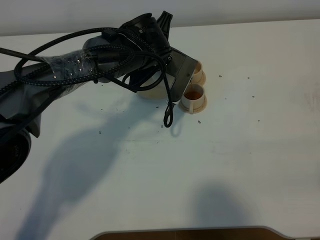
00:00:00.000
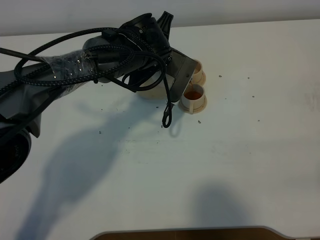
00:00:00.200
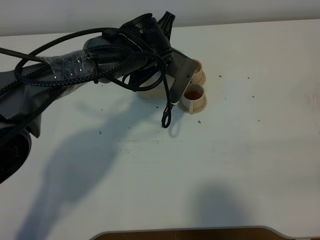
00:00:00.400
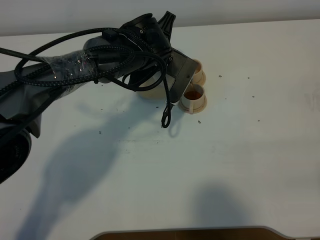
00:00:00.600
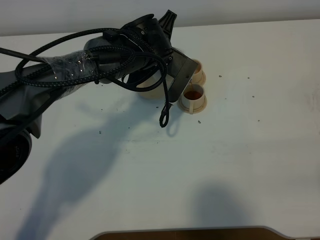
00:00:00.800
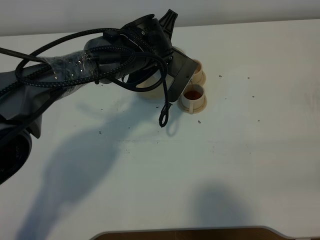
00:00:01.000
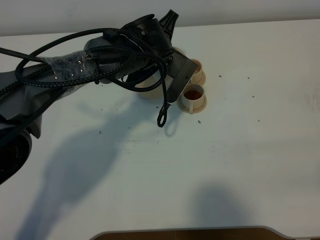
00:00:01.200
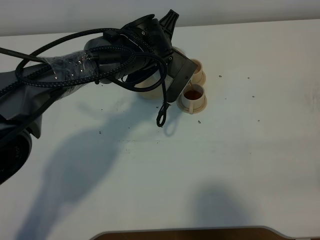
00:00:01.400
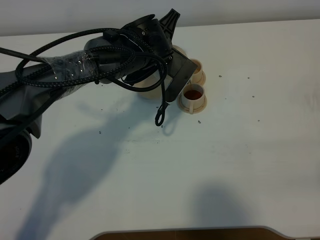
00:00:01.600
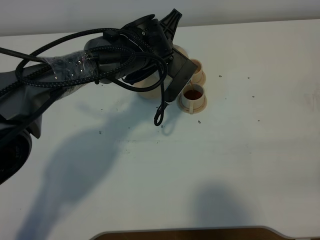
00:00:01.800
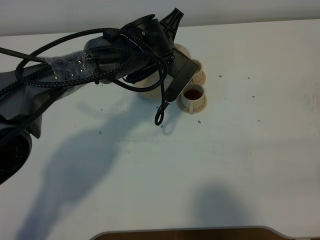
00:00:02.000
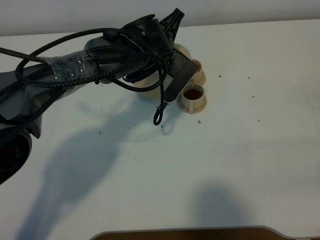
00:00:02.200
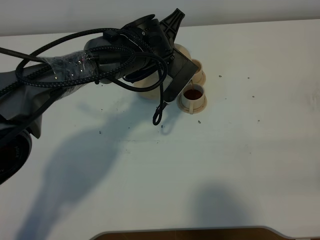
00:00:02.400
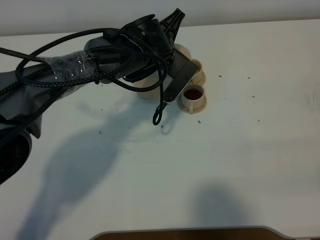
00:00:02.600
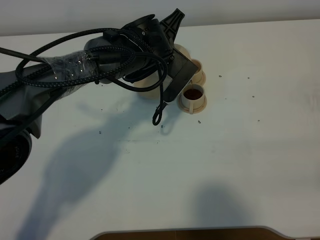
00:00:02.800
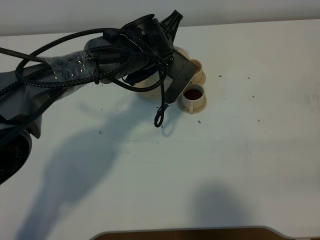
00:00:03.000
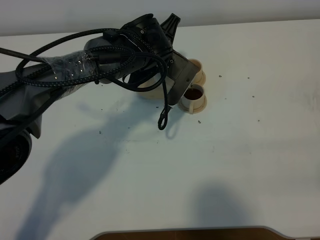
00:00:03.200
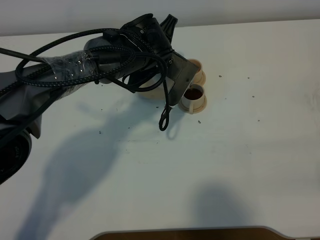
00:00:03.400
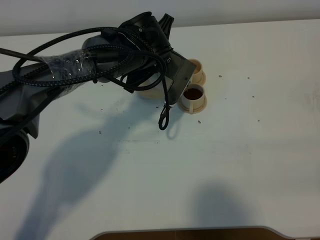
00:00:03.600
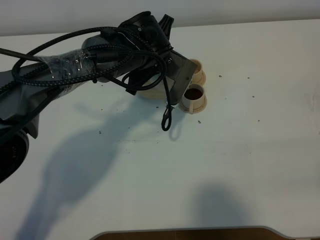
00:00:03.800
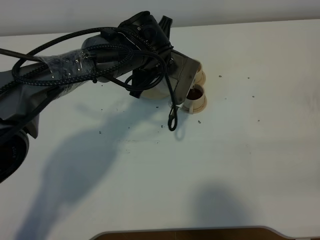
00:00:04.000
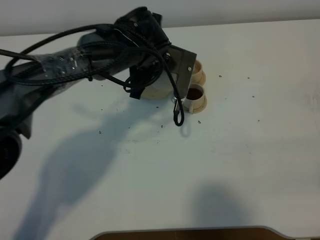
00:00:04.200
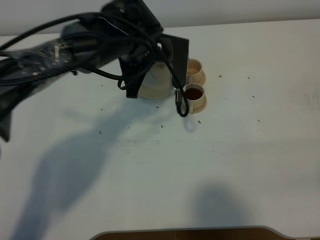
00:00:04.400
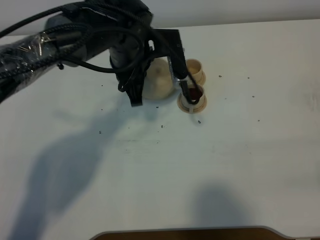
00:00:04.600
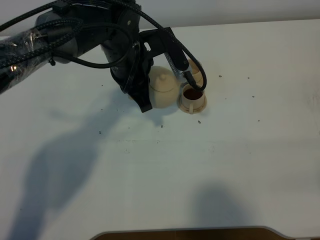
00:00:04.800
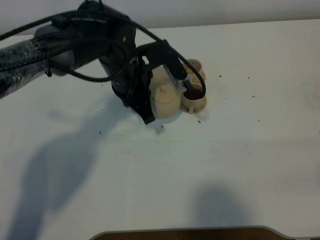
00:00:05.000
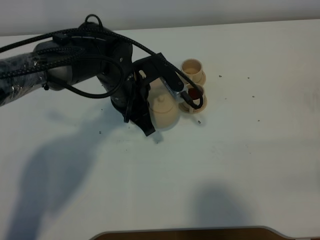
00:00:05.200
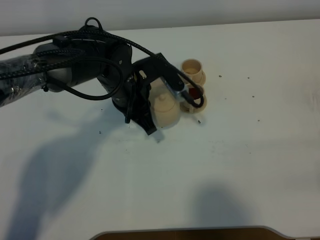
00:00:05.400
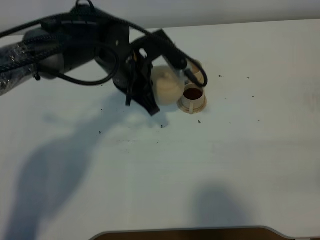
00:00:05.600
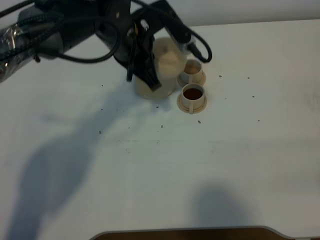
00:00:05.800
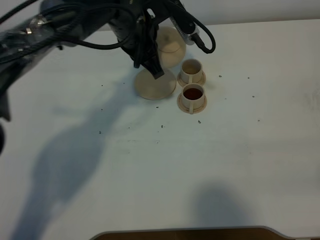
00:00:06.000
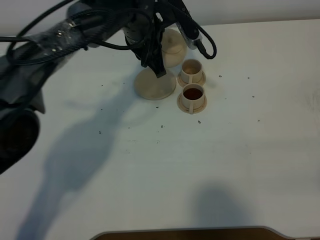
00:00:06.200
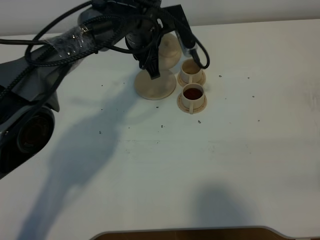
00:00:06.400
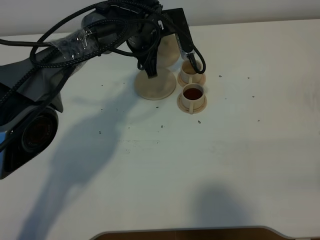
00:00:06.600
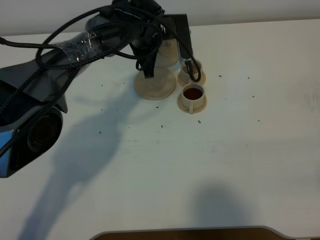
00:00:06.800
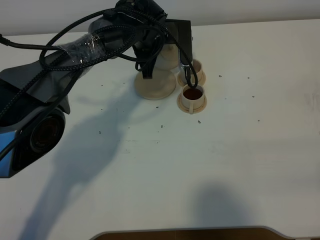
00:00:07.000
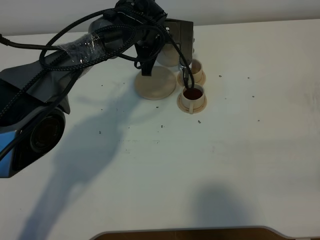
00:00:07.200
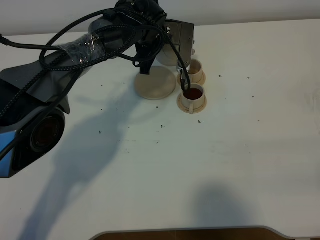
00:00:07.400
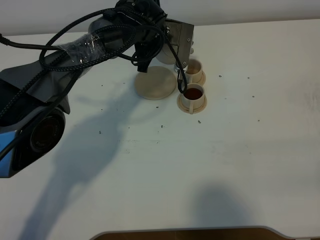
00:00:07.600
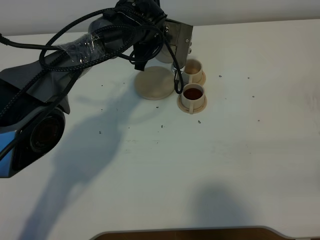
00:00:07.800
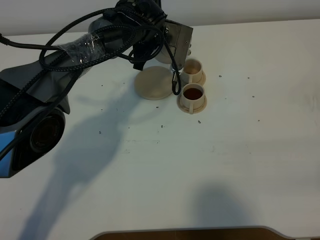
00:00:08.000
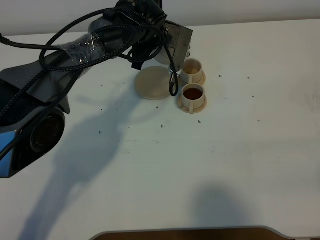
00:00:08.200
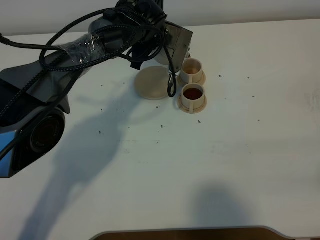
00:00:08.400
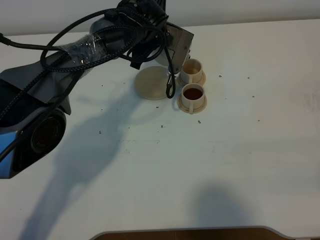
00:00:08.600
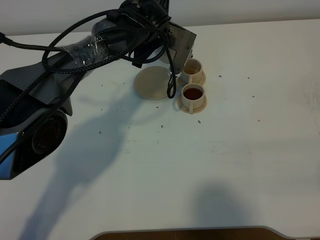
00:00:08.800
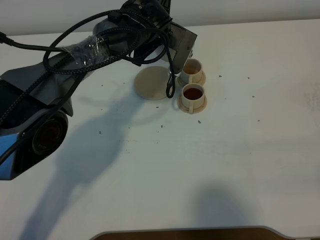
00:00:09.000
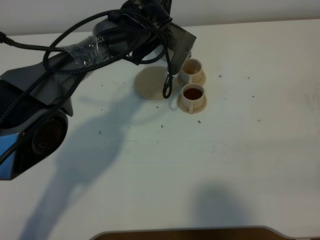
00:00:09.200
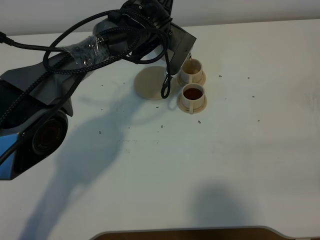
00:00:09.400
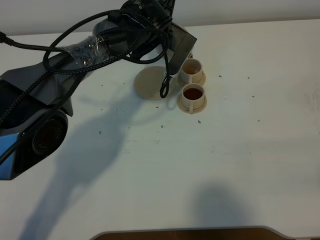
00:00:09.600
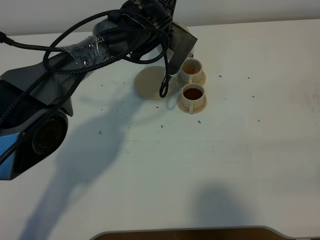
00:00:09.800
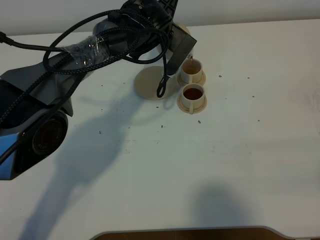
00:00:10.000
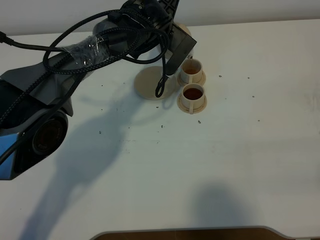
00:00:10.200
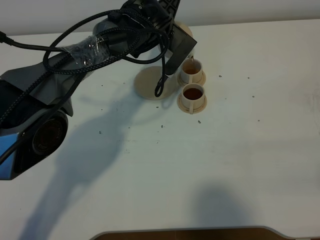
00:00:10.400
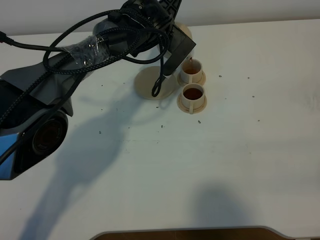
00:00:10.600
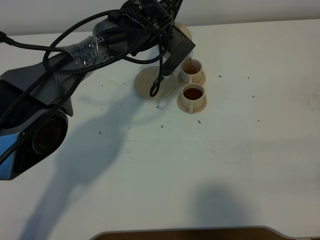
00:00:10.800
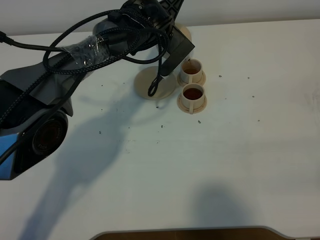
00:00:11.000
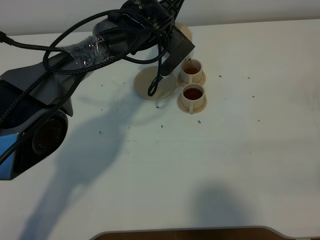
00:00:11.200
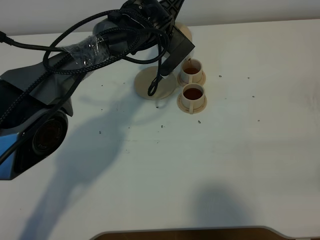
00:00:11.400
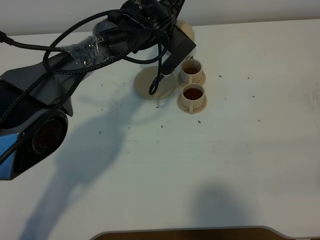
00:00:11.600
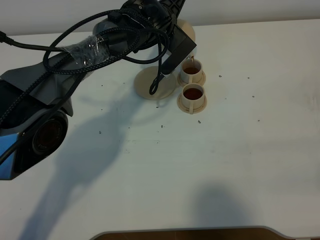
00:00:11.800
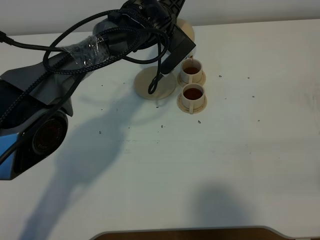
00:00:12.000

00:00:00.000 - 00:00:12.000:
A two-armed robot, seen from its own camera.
Task of the whole recording: grasp the brown teapot and pour the tea into the two brown teacups one by one, put the brown teapot back in its original place.
00:00:00.000 - 00:00:01.600: The grippers move only a little.
00:00:01.600 - 00:00:03.000: Both grippers stay about where they are.
00:00:03.000 - 00:00:04.400: The left gripper ends up about 5 cm from where it was.
00:00:04.400 - 00:00:06.000: The left gripper goes downward and returns, some 5 cm each way.
00:00:06.000 - 00:00:07.600: The left gripper goes about 10 cm forward and downward.
00:00:07.600 - 00:00:09.000: There are only small adjustments of the grippers.
00:00:09.000 - 00:00:10.400: The grippers make only small movements.
00:00:10.400 - 00:00:12.000: The grippers move only a little.

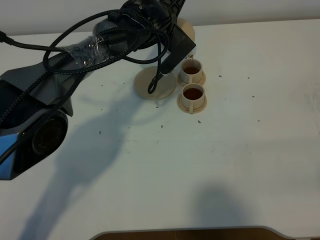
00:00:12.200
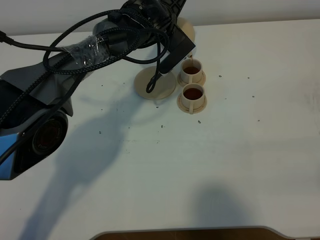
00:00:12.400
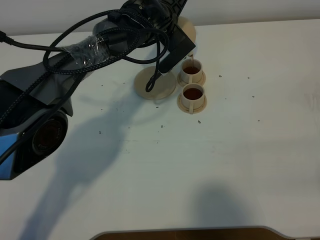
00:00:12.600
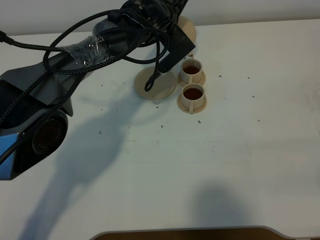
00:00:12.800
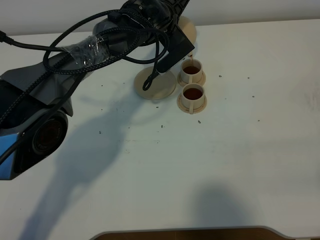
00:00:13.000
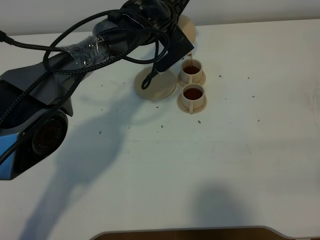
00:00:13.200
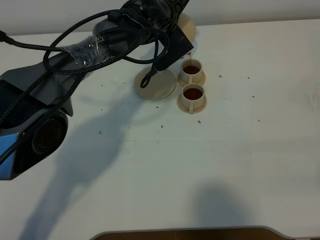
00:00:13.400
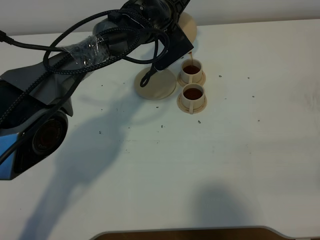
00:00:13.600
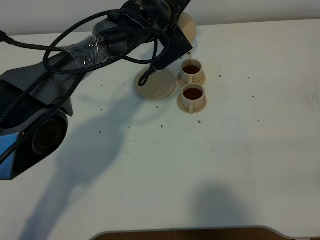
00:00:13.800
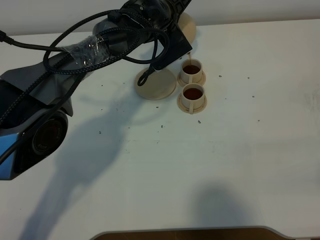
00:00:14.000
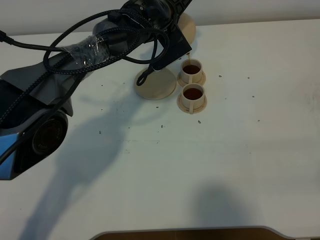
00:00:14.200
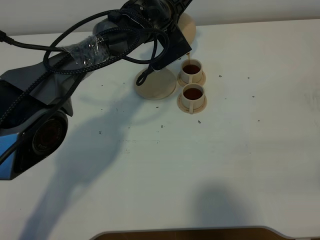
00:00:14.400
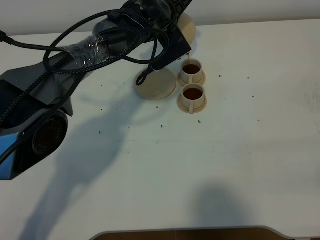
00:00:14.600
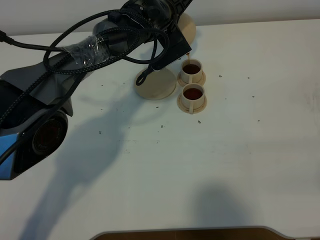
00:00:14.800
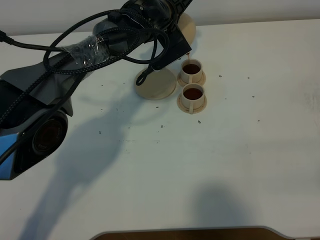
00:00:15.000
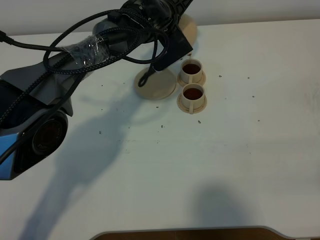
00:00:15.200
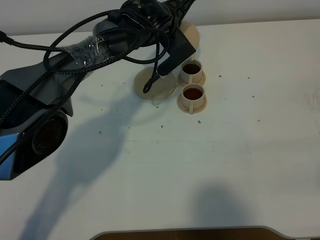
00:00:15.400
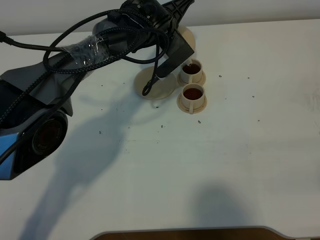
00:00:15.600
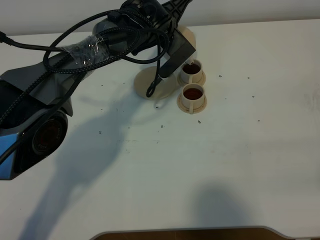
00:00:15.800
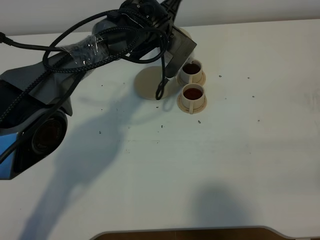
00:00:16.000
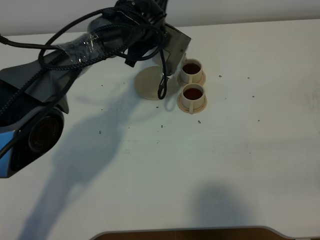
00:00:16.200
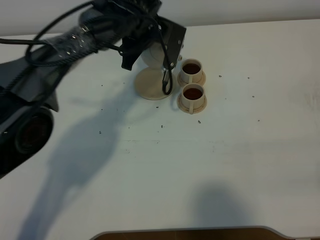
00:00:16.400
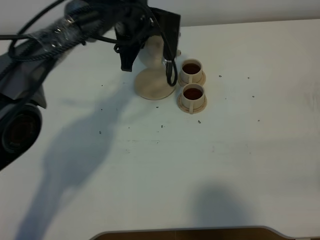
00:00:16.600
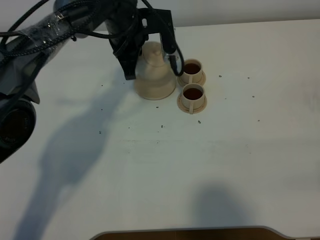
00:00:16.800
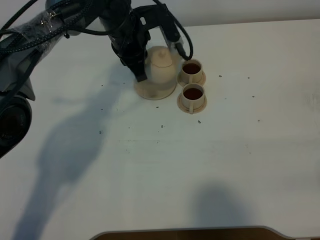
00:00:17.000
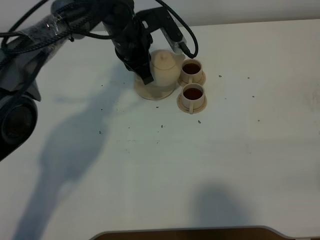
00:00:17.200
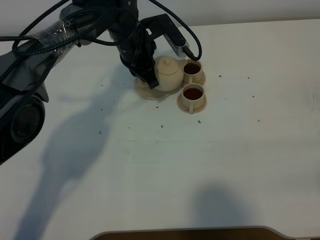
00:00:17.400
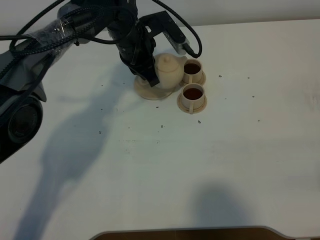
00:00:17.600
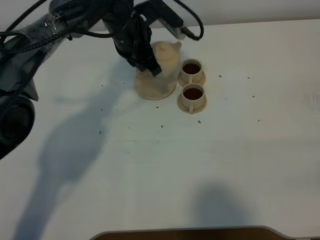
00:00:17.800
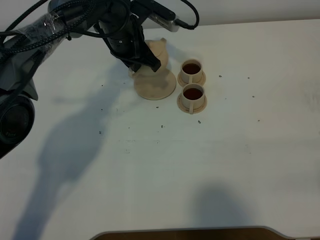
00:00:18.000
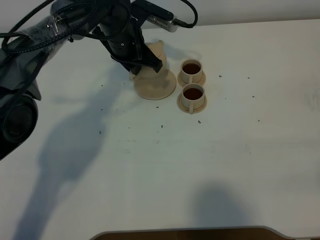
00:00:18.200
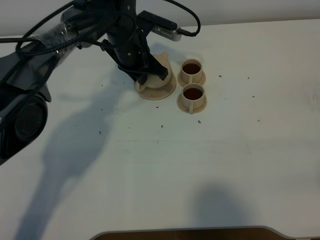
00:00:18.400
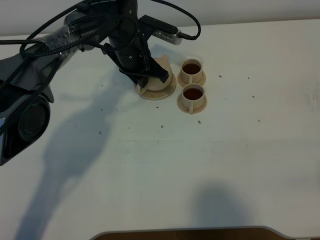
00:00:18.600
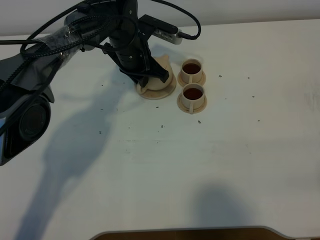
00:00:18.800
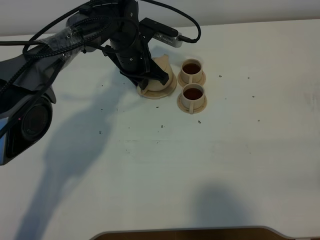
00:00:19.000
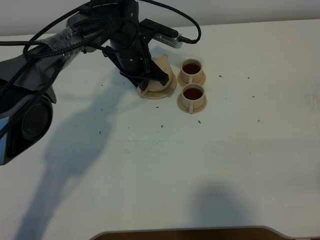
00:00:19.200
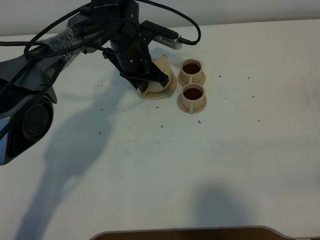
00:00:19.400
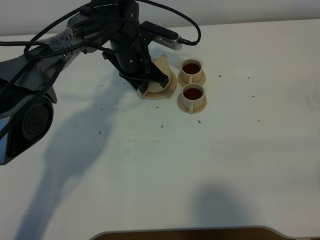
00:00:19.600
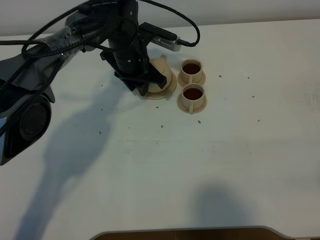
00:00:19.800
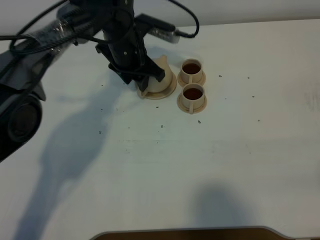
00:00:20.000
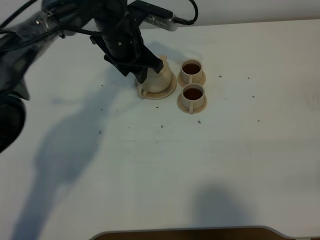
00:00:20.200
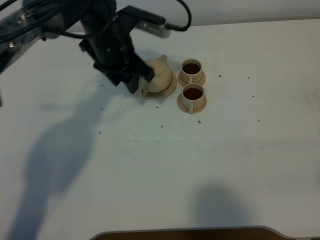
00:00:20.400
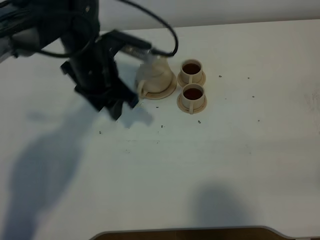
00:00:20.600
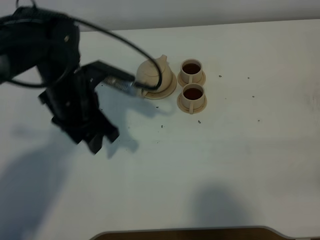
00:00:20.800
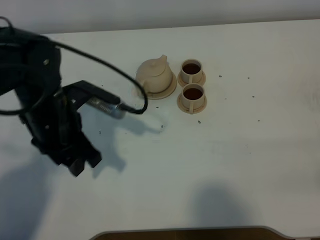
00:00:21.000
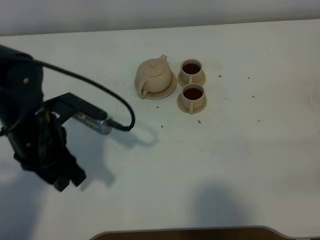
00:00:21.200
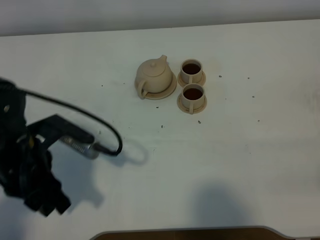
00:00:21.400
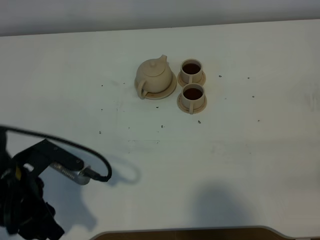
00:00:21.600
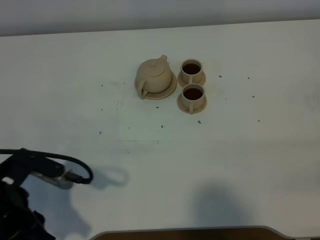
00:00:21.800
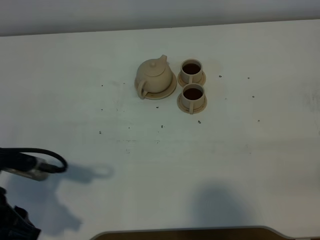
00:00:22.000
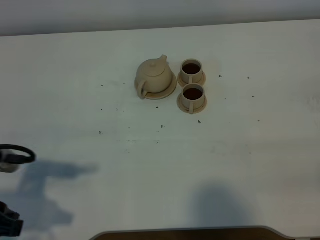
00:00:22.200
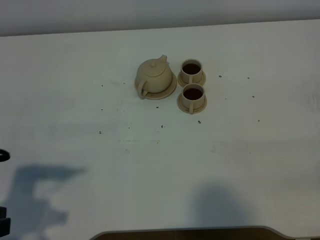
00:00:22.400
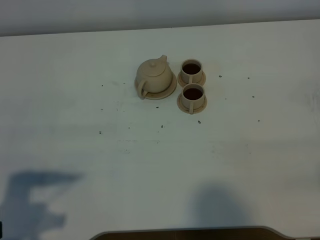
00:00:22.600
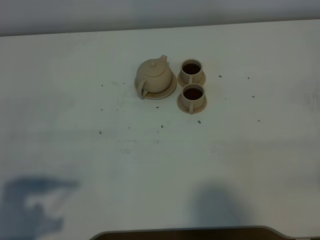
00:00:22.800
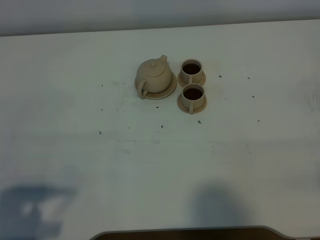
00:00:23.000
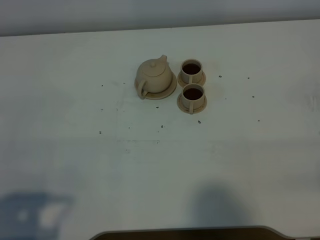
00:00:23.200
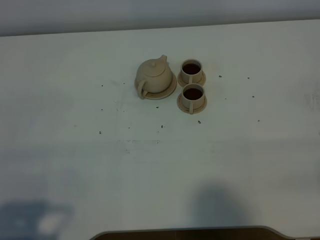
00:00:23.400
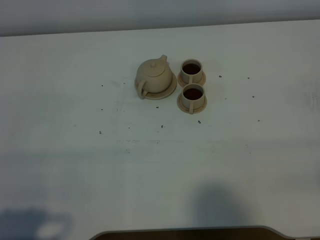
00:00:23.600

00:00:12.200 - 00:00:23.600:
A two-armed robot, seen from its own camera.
Task of the whole recording: grasp the brown teapot and pour the tea into the two brown teacups one by one, put the brown teapot back in its original place.
Step, 00:00:12.200 - 00:00:16.200: Pour tea into the teacup with the left gripper.
00:00:12.200 - 00:00:13.600: The grippers move only a little.
00:00:13.600 - 00:00:15.000: The two grippers keep their place.
00:00:17.800 - 00:00:19.400: The left gripper is displaced downward by some 5 cm.
00:00:19.400 - 00:00:20.800: The left gripper shifts approximately 20 cm backward, to the left and upward, and opens its fingers.
00:00:20.800 - 00:00:22.200: The left gripper goes roughly 25 cm backward and to the left.
00:00:22.200 - 00:00:23.600: The left gripper moves backward, about 10 cm.
